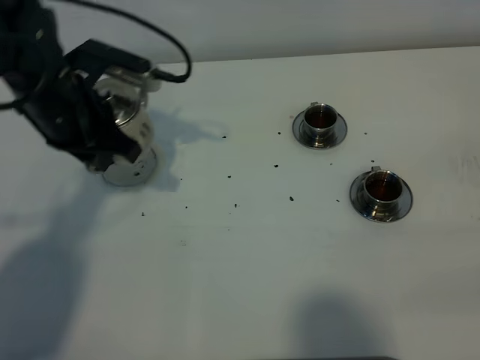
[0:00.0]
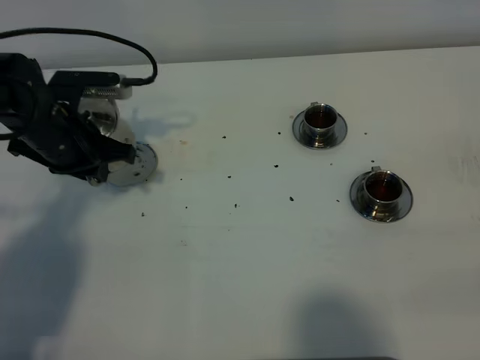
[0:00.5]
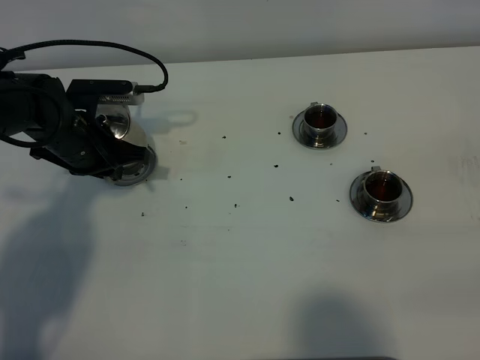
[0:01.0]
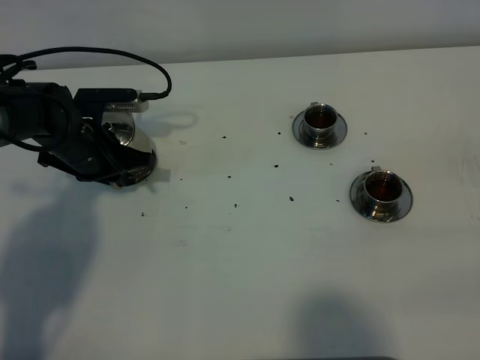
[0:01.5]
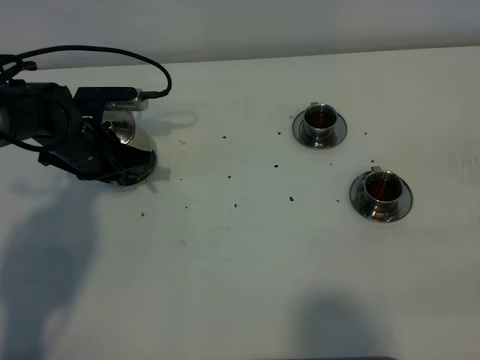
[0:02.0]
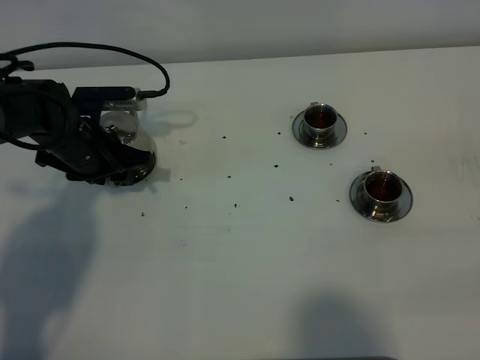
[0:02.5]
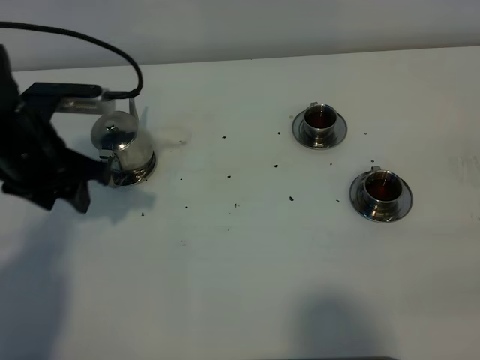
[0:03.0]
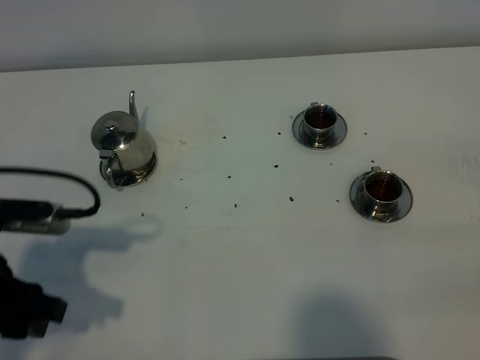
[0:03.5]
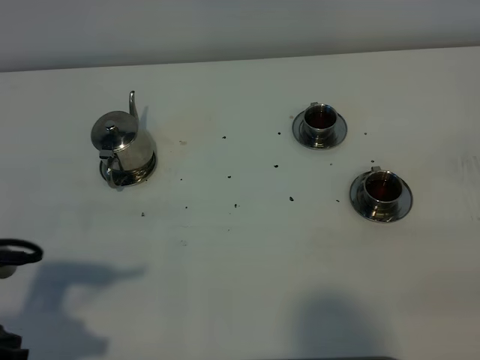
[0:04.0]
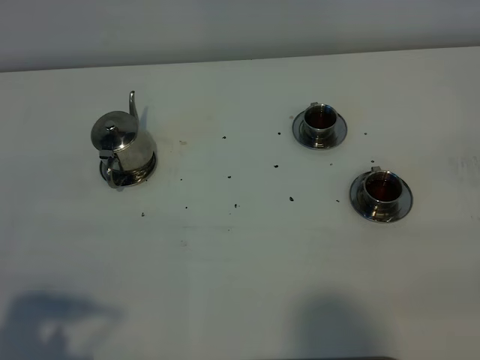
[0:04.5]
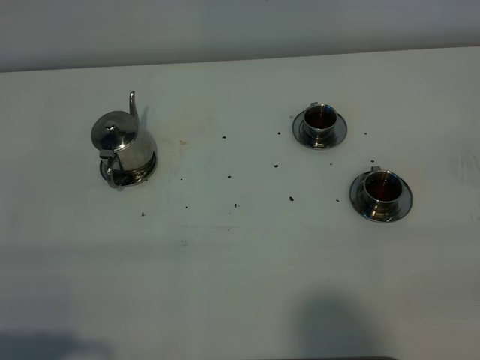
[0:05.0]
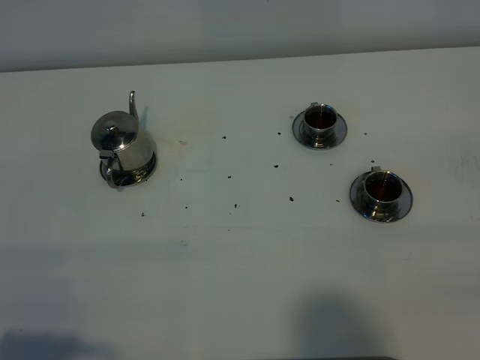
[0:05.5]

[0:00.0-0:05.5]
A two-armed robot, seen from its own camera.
Task of the whole recording: grasp the stainless steel teapot and pour the tea into the two stainless steel teacups one by one, put the stainless steel teapot back in its original place.
0:00.0 to 0:02.0: The left gripper shifts some 10 cm downward.
0:02.0 to 0:03.5: The left gripper is displaced backward by approximately 25 cm, and opens.
0:03.5 to 0:05.5: The left gripper is displaced backward by some 15 cm.

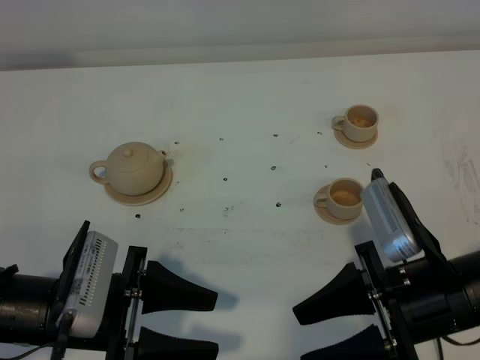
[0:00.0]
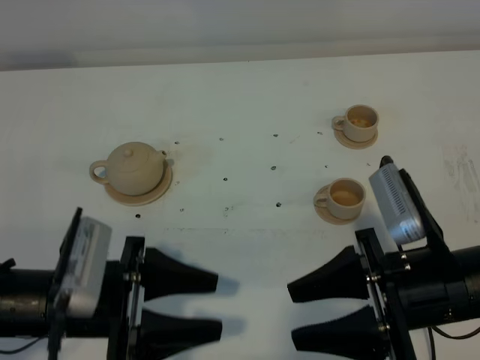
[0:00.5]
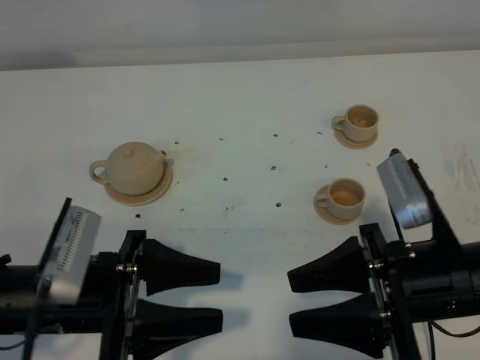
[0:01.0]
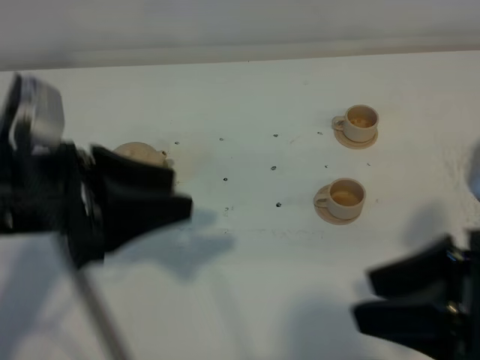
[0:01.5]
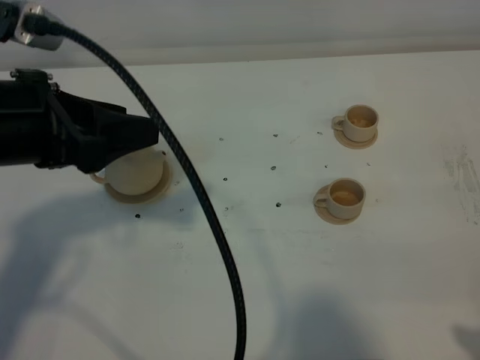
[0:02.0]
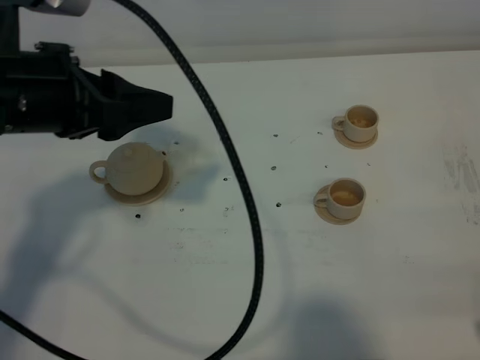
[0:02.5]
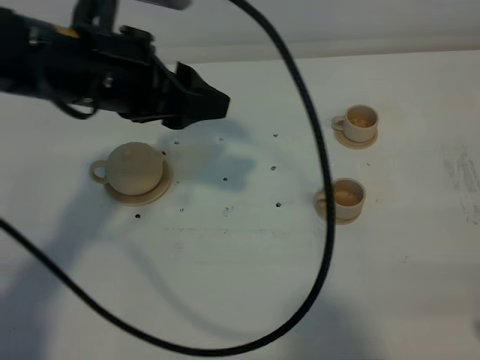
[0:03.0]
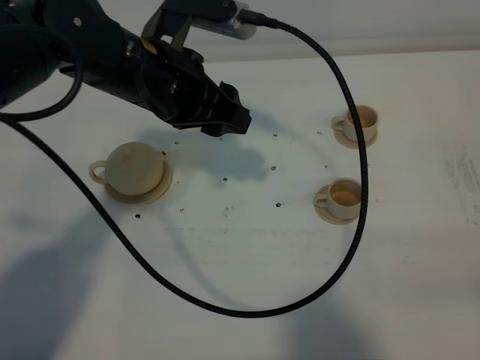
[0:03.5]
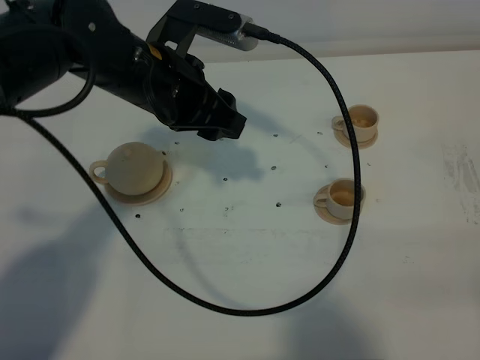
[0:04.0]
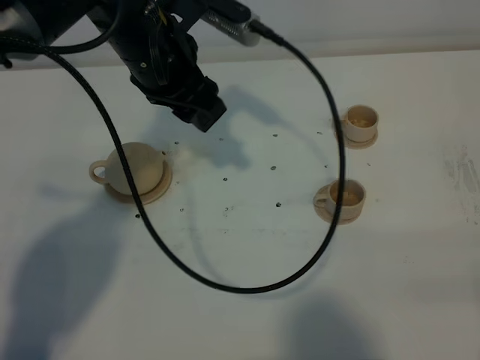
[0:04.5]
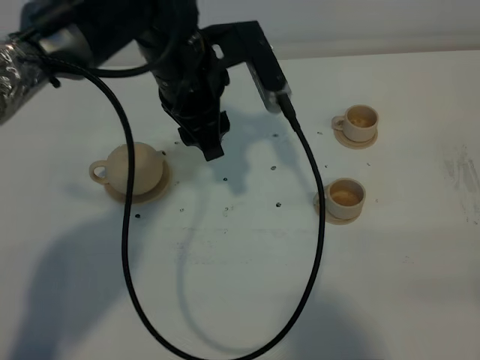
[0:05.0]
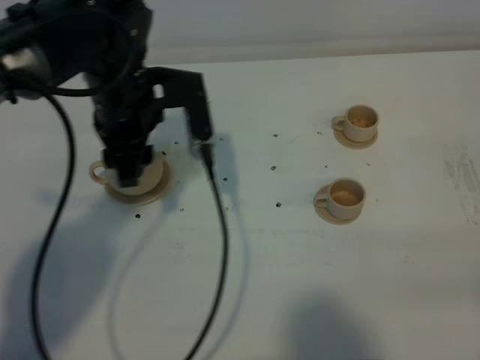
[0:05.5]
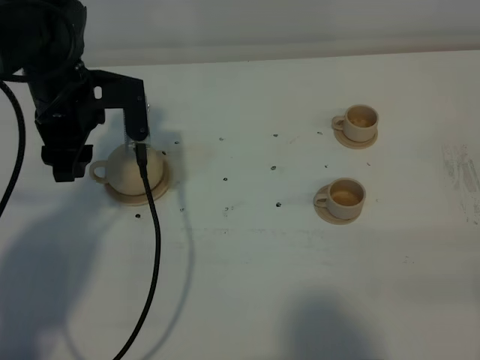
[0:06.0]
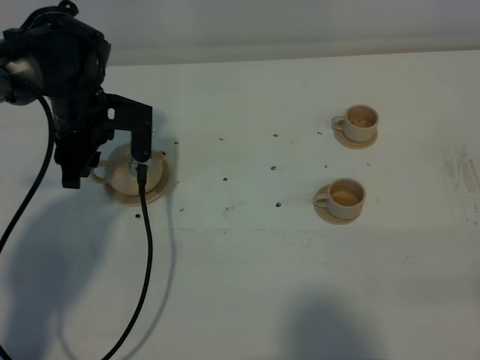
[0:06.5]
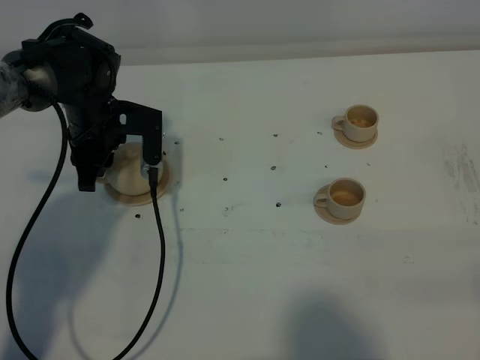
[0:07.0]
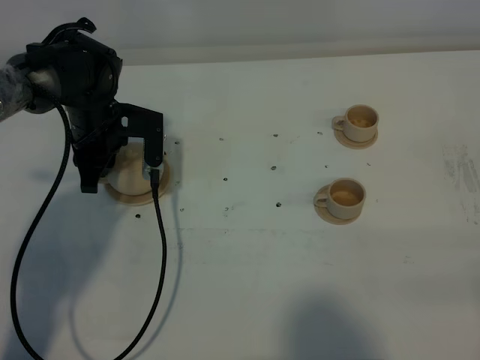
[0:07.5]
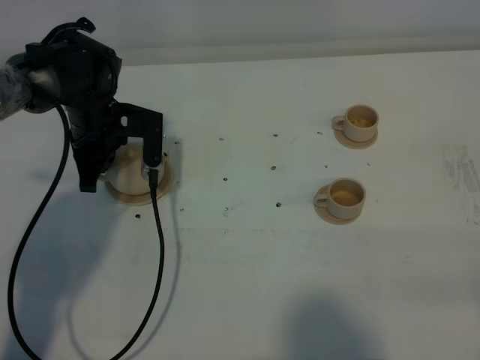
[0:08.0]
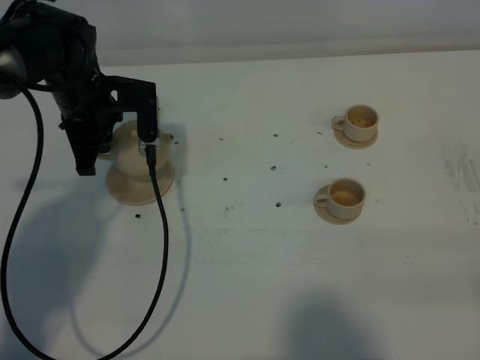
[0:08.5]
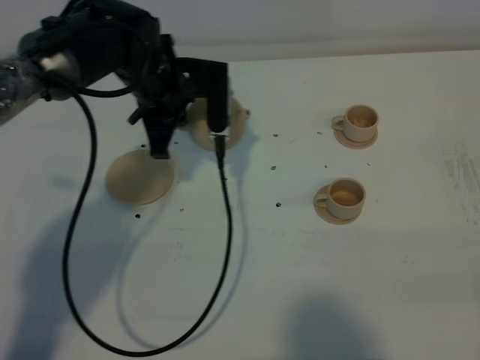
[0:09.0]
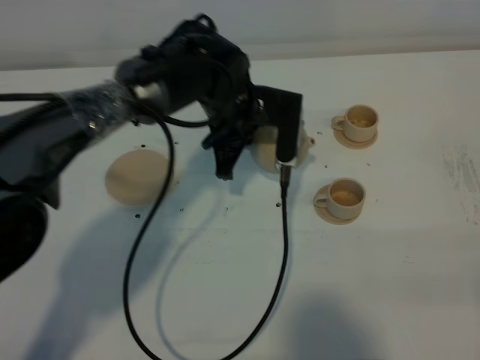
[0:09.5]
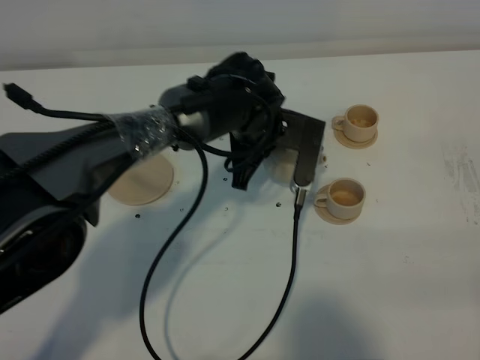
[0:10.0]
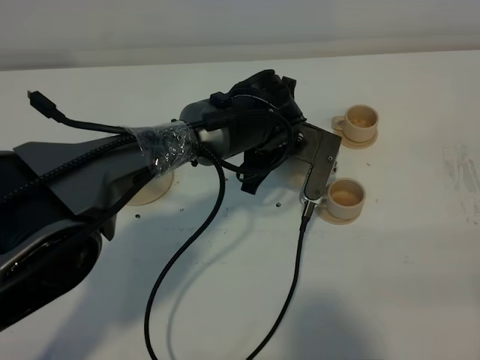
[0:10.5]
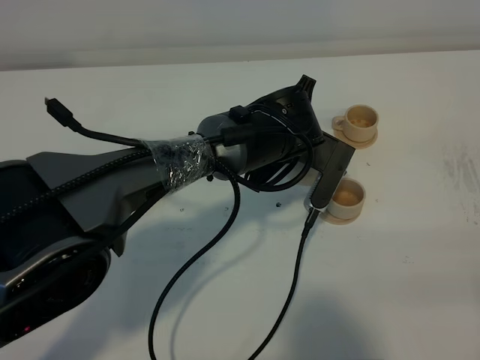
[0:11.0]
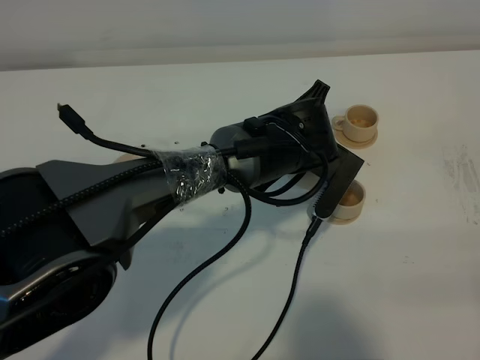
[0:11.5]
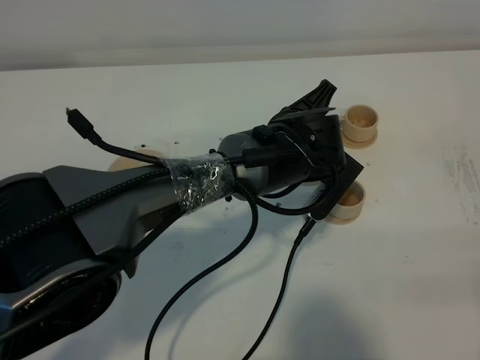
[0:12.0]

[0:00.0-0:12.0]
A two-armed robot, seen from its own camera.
Task of the whole recording: grasp the brown teapot and pour the tea into the two brown teacups one by one, put the brown teapot back in its original place.
Step, 0:00.0 to 0:08.0: Pick up the teapot with the left gripper.
0:00.0 to 0:02.0: The left gripper heads upward and forward, covering some 20 cm. The right gripper is displaced to the right, backward and upward by roughly 20 cm.
0:02.0 to 0:04.0: The left gripper heads forward, to the right and downward, covering about 15 cm.
0:04.0 to 0:06.0: The left gripper shifts some 10 cm to the left.
0:06.0 to 0:08.0: The left gripper moves downward, about 10 cm, and closes up.
0:08.0 to 0:10.0: The left gripper travels to the right by some 20 cm.
0:10.0 to 0:12.0: The left gripper goes roughly 5 cm to the right.

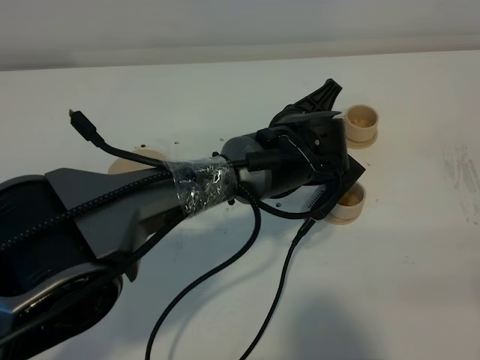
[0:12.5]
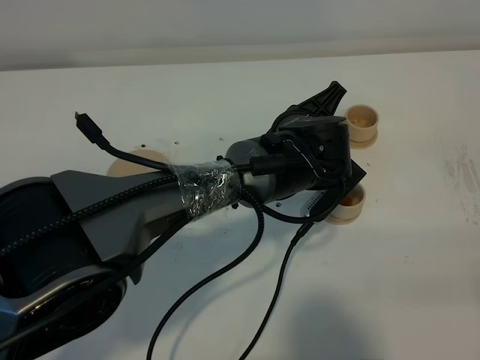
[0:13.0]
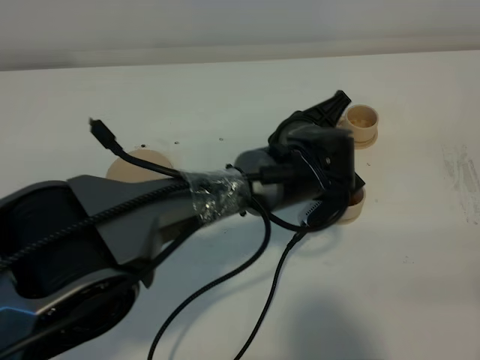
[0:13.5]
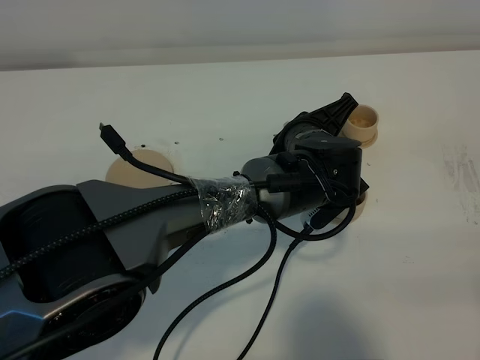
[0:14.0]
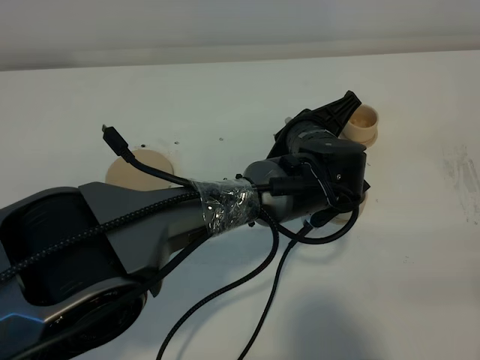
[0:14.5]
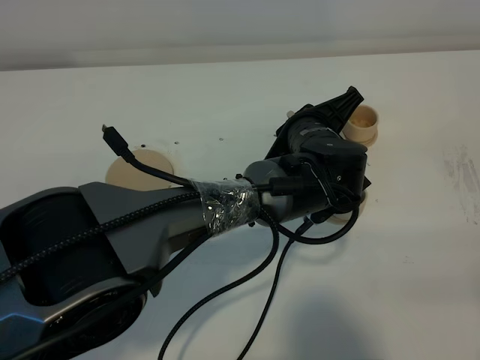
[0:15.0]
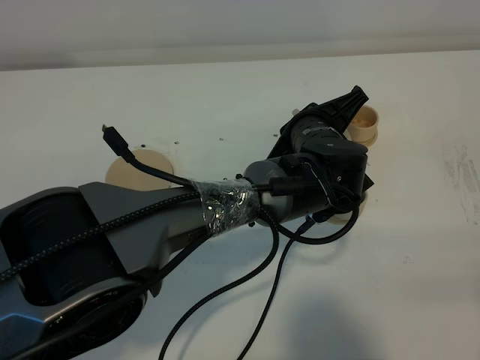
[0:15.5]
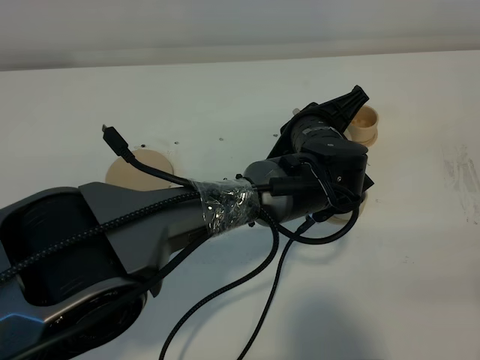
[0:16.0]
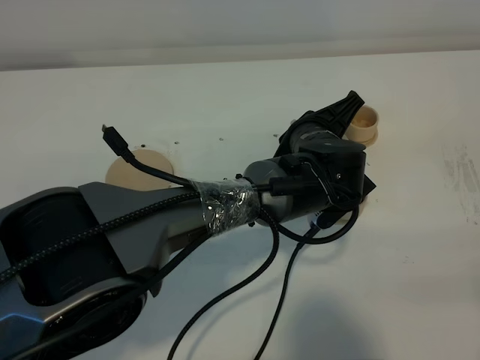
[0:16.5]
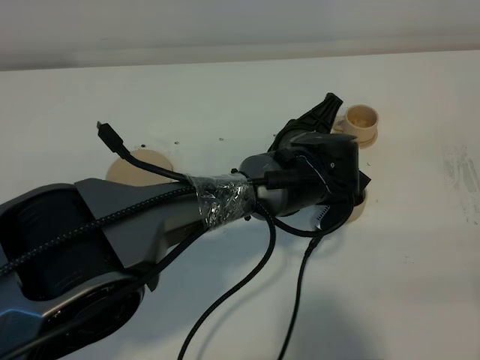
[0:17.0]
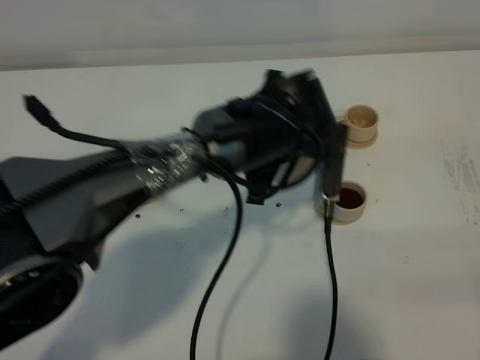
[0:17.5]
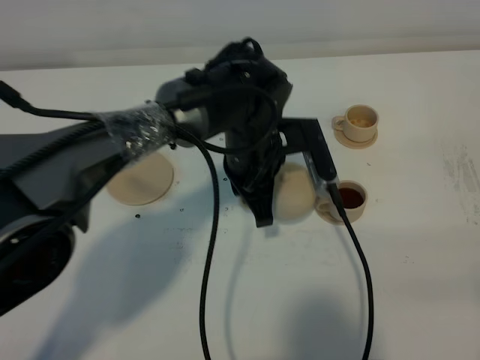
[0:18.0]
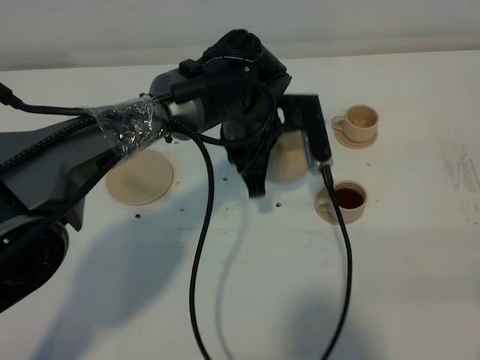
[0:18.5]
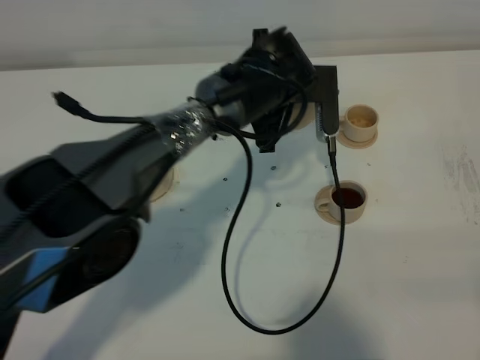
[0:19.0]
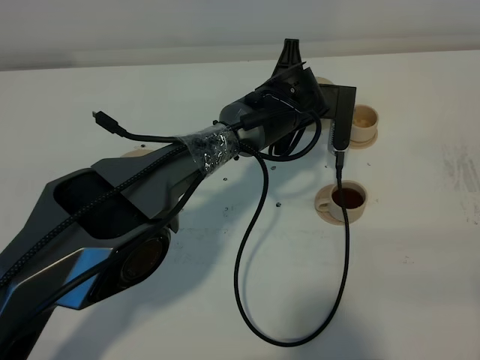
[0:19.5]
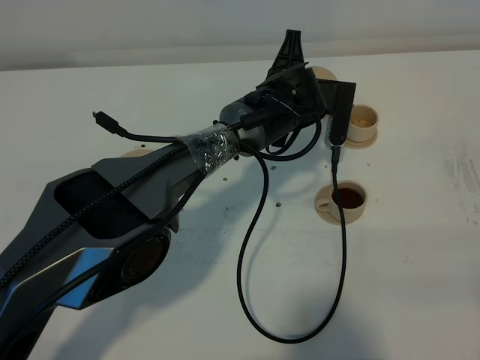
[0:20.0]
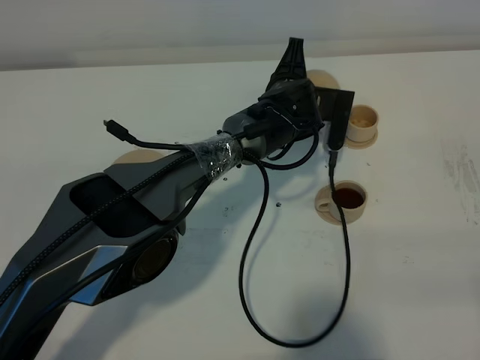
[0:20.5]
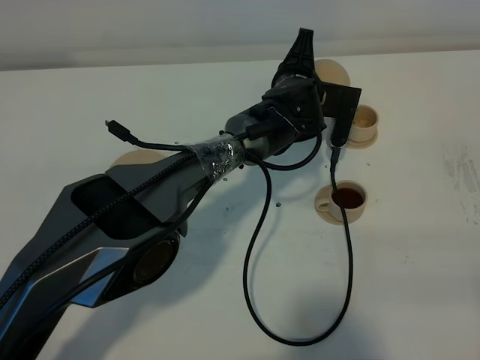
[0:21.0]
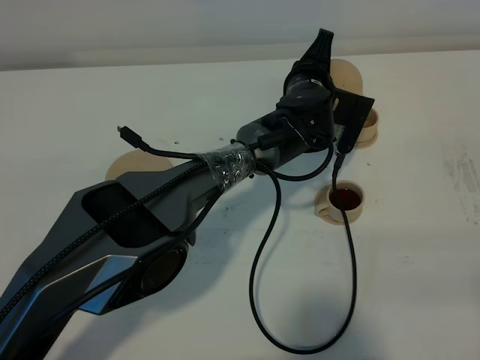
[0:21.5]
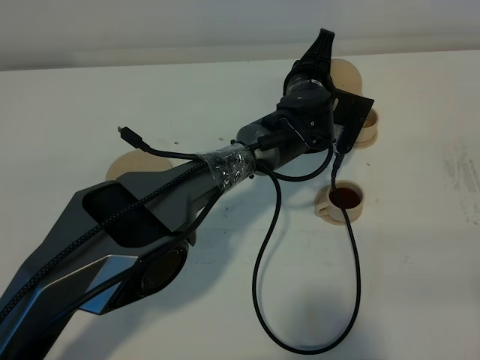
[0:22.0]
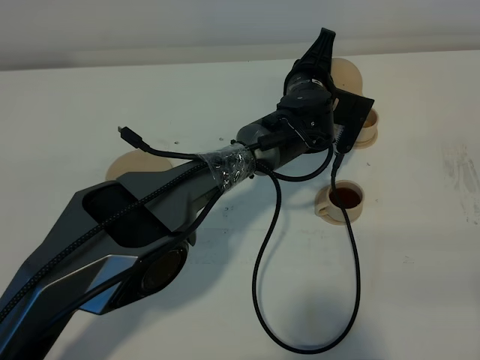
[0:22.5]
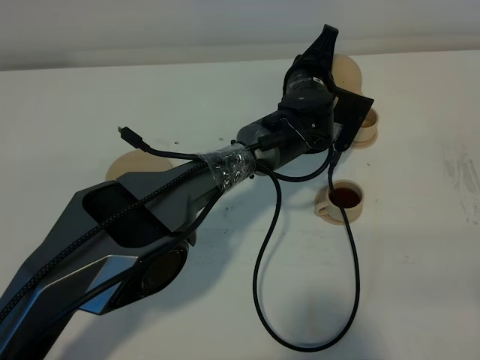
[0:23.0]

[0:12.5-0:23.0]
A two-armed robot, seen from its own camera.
Task of the whole recording: grasp the brown teapot and pour the tea into the two brown teacups one by one, put the brown teapot back in its original place.
0:14.5 to 0:16.5: Both grippers stay about where they are.
0:16.5 to 0:19.0: The left gripper shifts roughly 10 cm forward.
0:19.0 to 0:21.0: The left gripper shifts by about 5 cm.
0:21.0 to 0:23.0: The grippers make only small movements.
